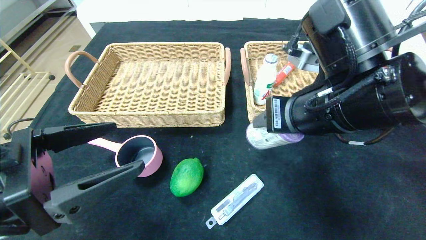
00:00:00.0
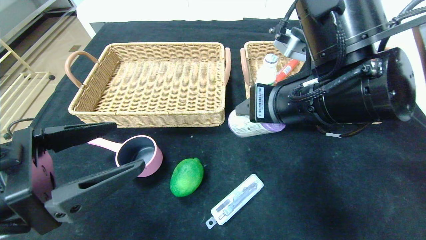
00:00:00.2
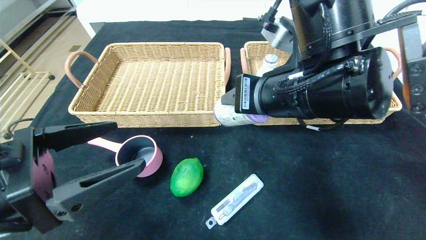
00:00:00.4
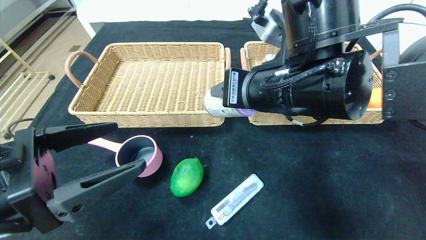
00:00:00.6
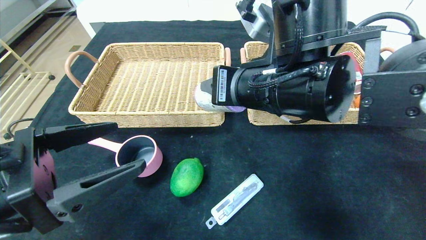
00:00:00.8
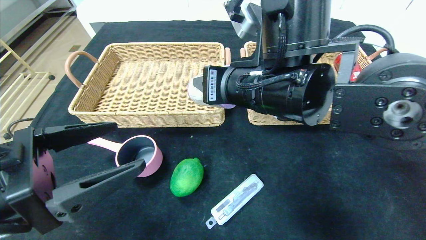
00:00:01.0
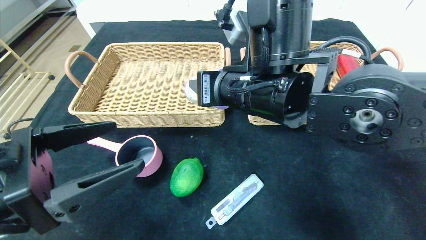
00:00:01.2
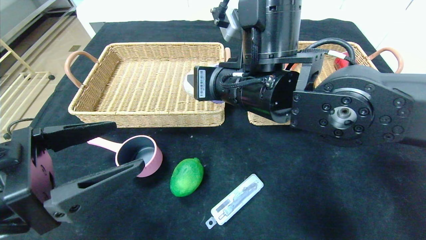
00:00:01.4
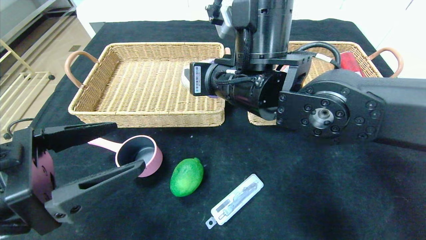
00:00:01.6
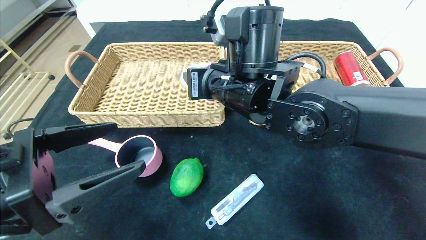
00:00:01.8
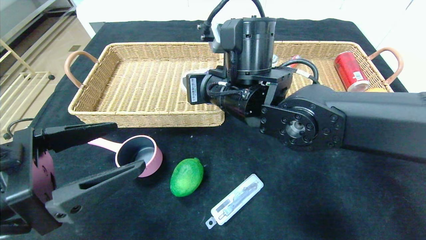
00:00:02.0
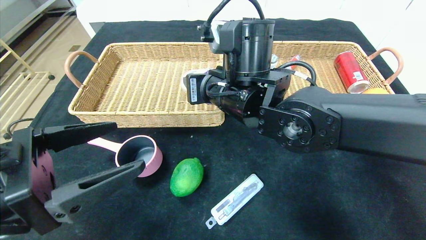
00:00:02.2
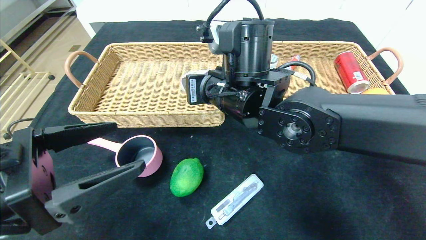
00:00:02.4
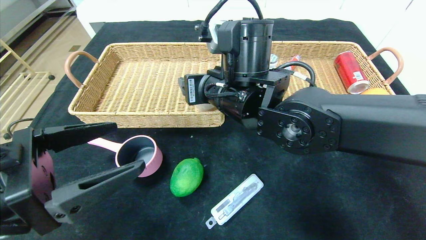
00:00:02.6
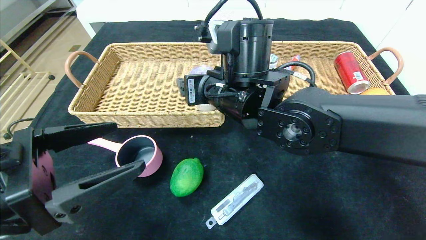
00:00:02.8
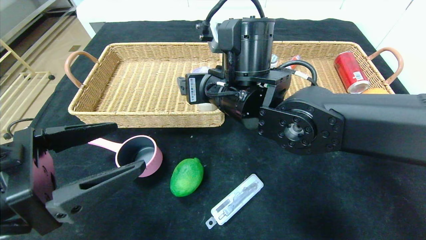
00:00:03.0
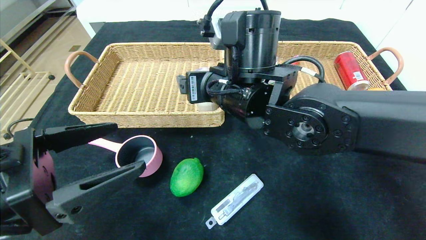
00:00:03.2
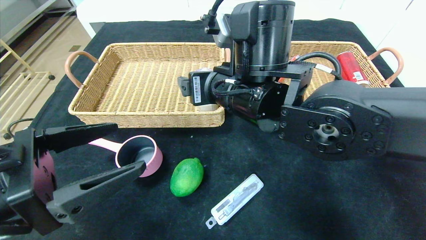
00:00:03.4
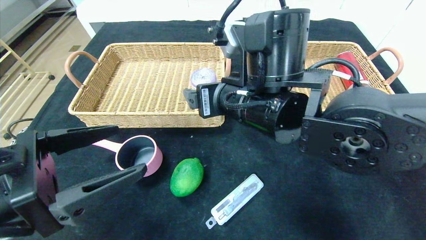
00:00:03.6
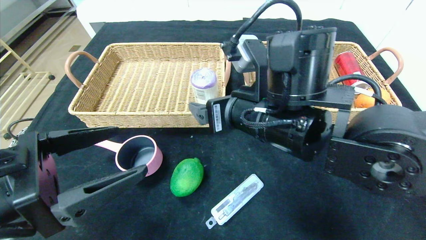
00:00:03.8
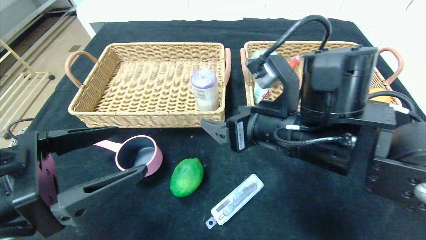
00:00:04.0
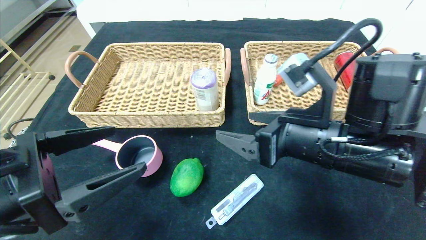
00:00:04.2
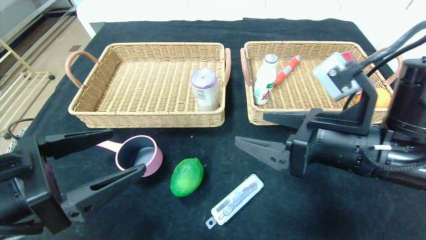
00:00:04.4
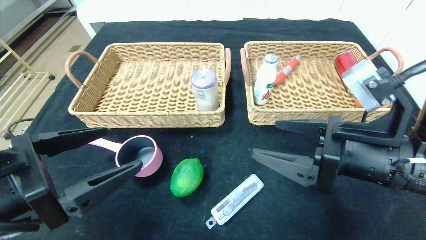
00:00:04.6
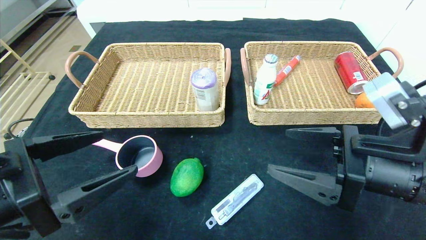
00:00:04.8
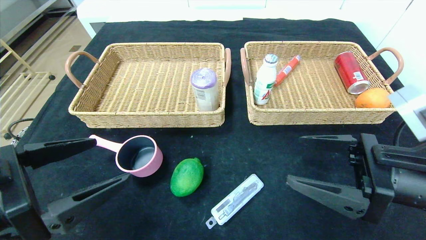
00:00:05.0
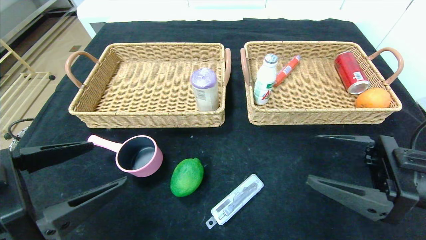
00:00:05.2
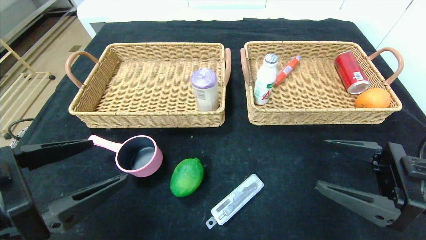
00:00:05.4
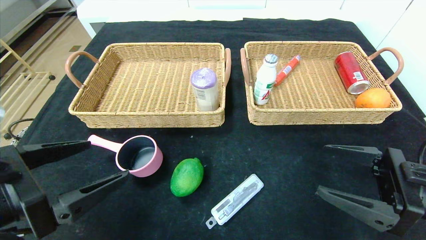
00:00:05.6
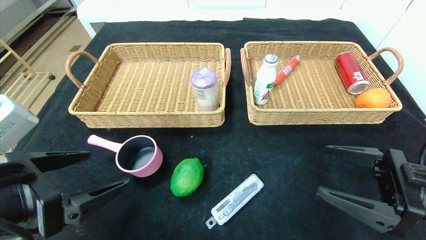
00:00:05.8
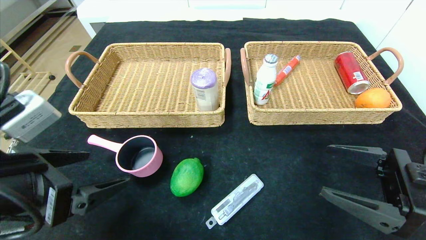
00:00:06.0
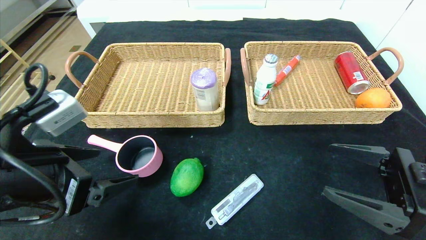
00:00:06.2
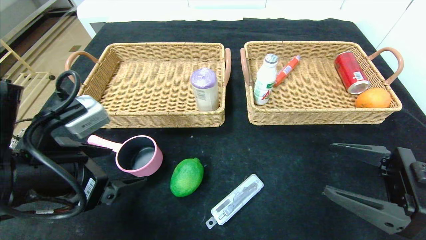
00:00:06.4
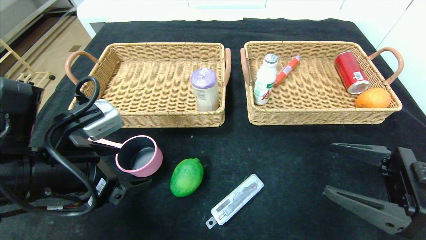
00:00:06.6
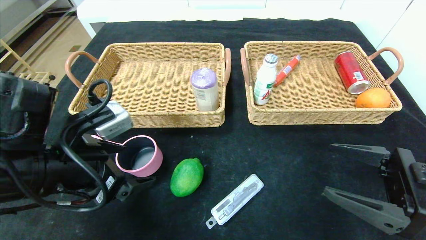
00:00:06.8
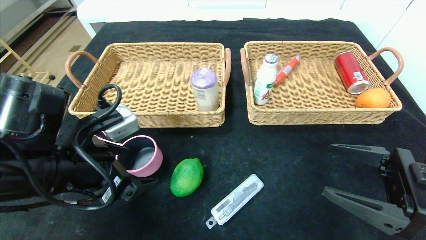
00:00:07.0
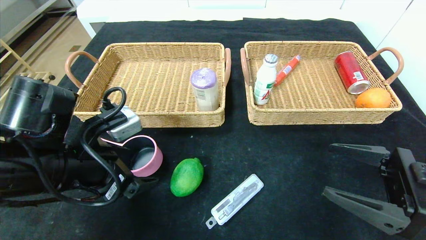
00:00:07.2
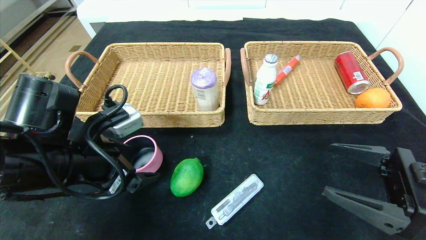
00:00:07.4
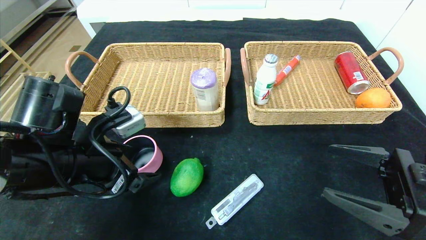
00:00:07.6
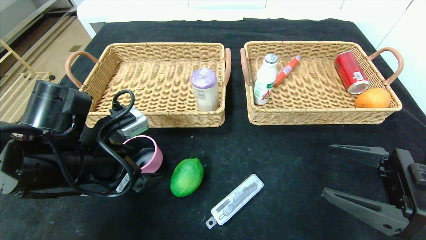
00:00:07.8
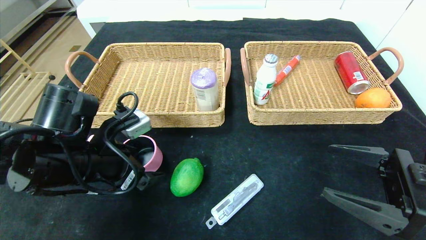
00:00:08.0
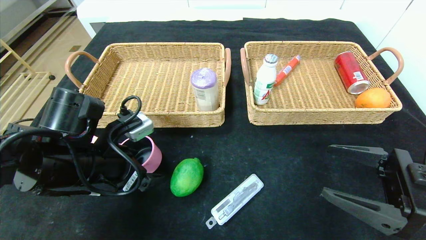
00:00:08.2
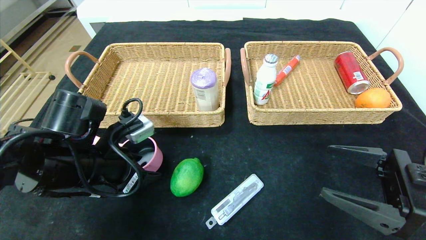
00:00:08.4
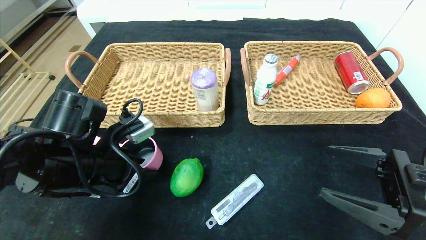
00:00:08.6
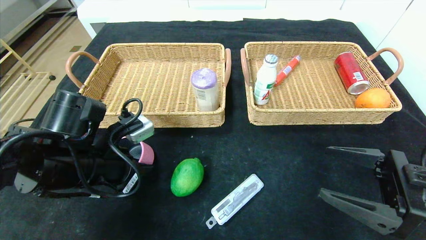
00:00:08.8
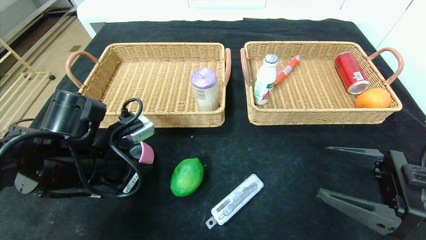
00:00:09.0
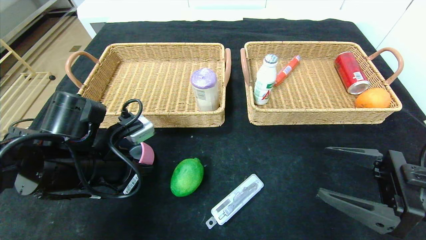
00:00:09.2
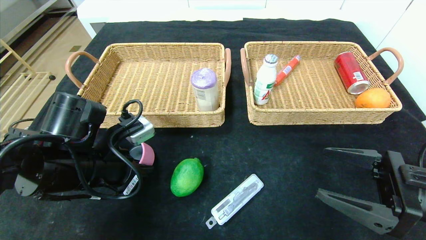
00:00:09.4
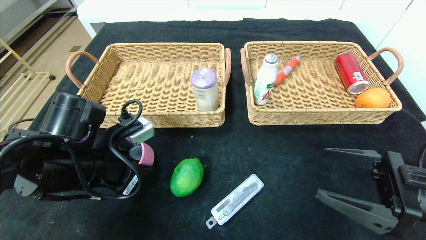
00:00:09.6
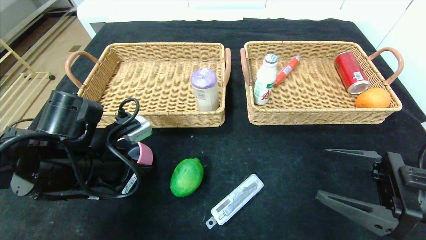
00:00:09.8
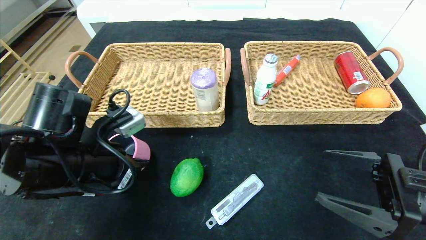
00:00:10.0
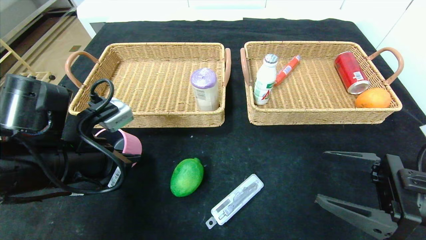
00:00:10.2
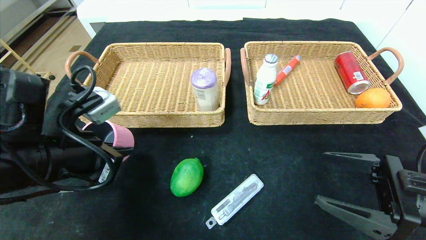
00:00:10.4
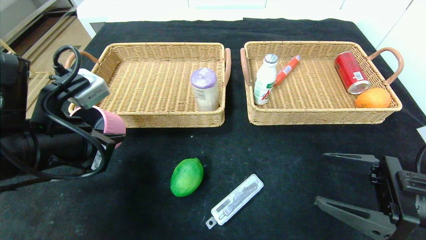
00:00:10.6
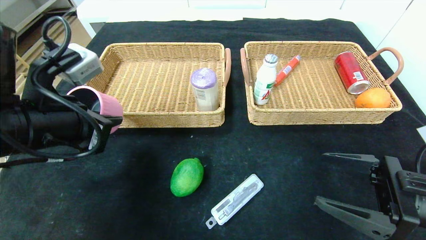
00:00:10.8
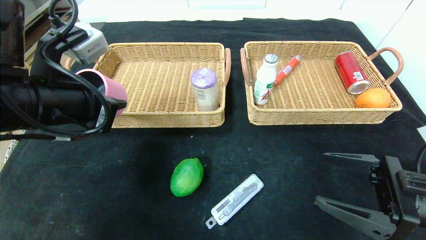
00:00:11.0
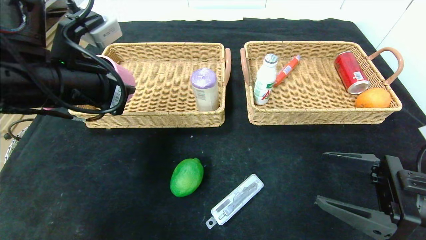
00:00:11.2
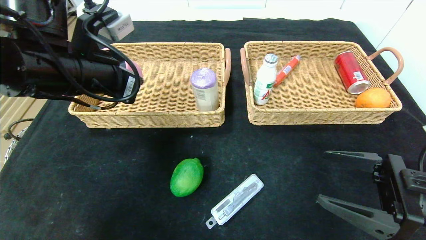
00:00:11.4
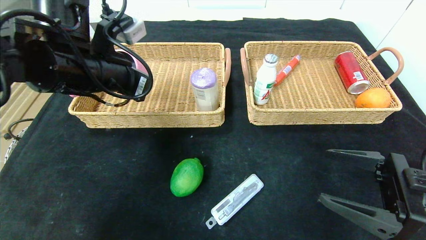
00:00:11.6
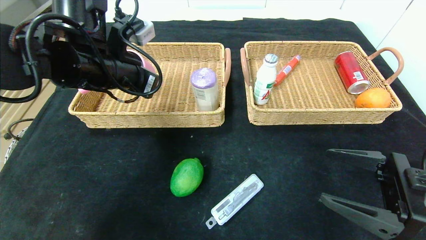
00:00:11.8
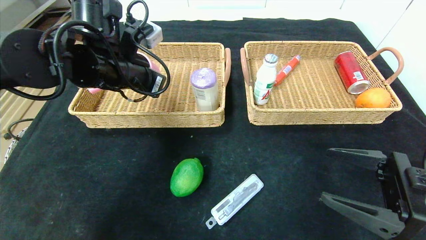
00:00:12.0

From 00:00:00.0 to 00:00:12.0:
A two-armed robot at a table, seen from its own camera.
From 00:00:00.0 to 00:00:01.6: The right gripper moves to the left and forward, approximately 10 cm.
From 00:00:01.6 to 00:00:03.0: The right gripper opens.
From 00:00:03.0 to 00:00:04.4: The right gripper goes approximately 20 cm to the right and backward.
From 00:00:04.4 to 00:00:06.0: The right gripper shifts about 10 cm to the right.
From 00:00:06.0 to 00:00:07.6: The left gripper goes some 10 cm forward.
From 00:00:07.6 to 00:00:09.0: The left gripper closes its fingers.
From 00:00:09.0 to 00:00:10.4: The left gripper changes place by some 5 cm.
From 00:00:10.4 to 00:00:12.0: The left gripper shifts about 15 cm forward and upward.

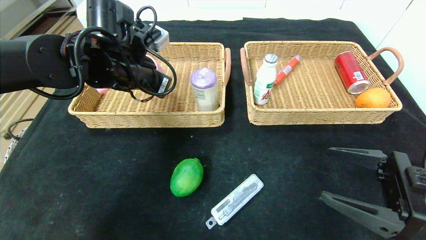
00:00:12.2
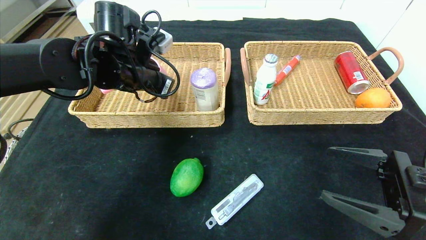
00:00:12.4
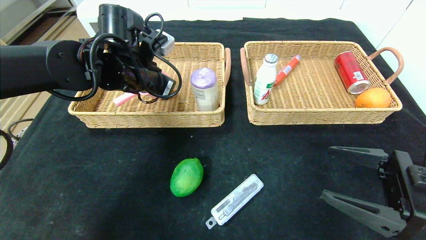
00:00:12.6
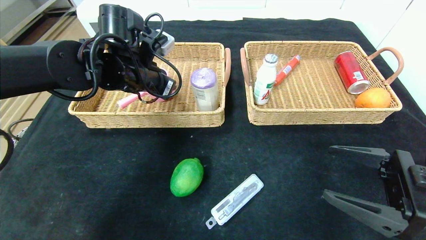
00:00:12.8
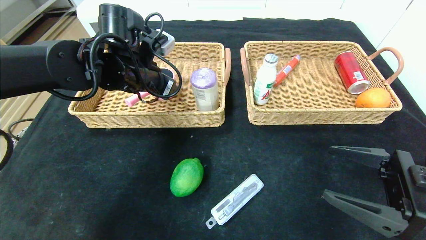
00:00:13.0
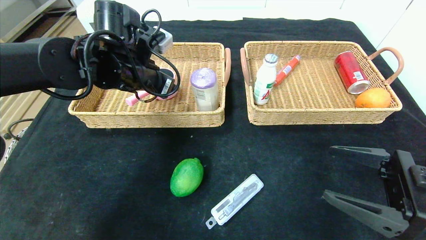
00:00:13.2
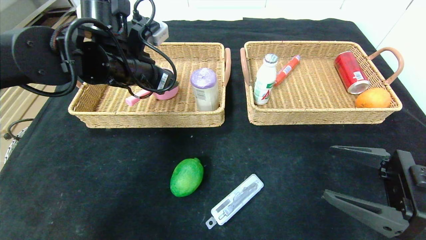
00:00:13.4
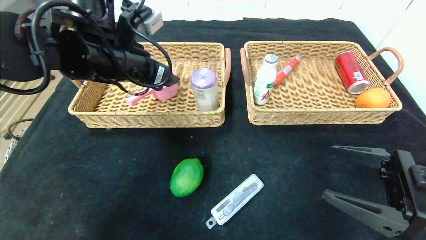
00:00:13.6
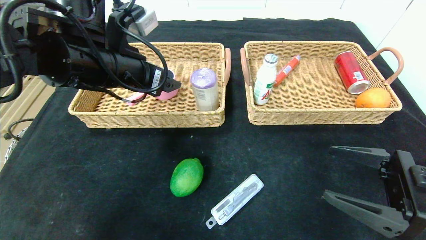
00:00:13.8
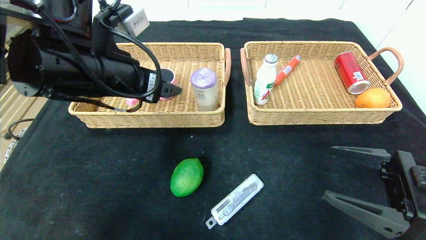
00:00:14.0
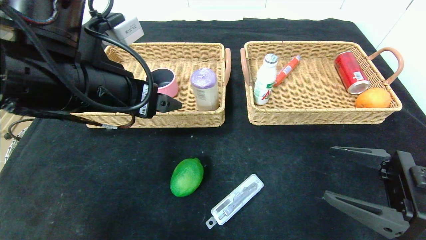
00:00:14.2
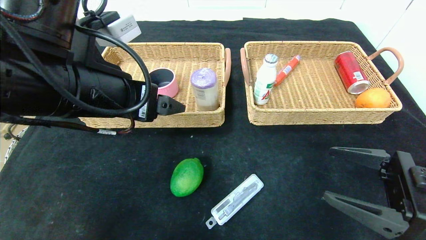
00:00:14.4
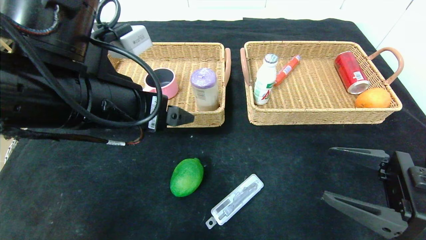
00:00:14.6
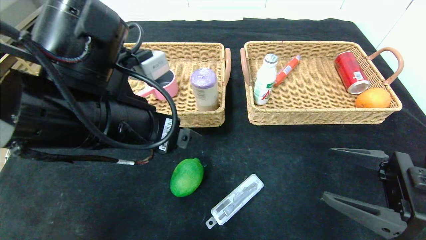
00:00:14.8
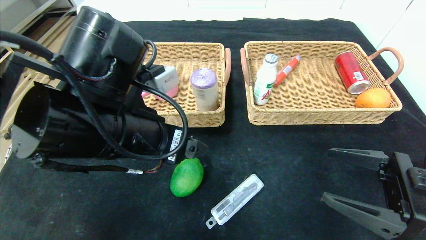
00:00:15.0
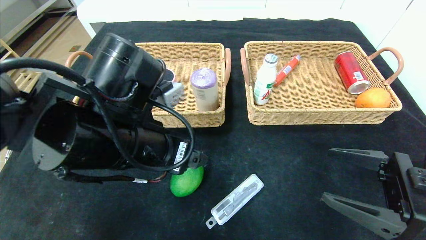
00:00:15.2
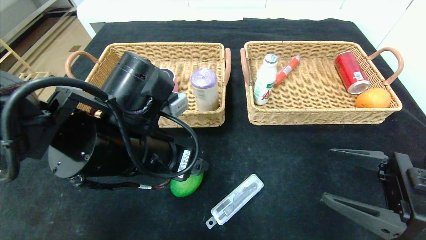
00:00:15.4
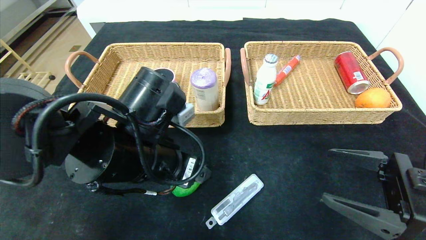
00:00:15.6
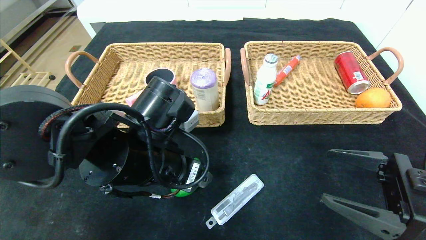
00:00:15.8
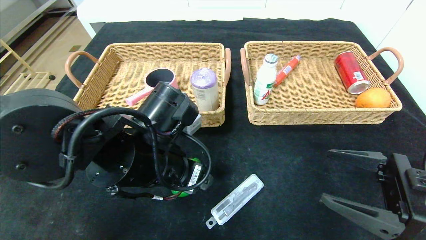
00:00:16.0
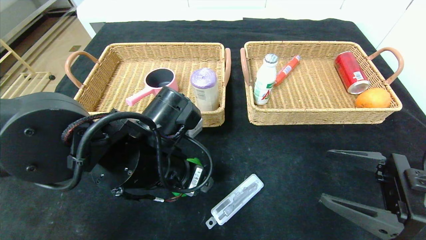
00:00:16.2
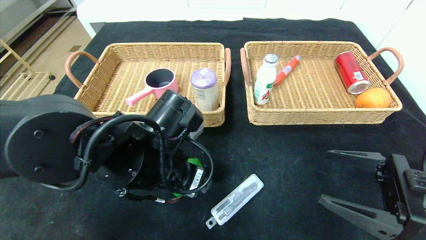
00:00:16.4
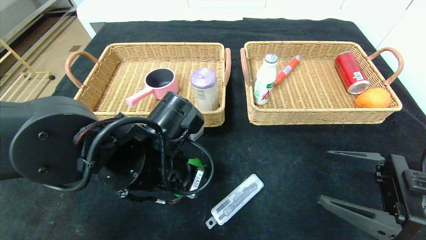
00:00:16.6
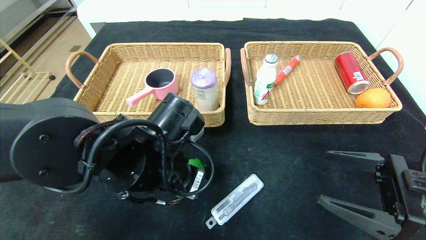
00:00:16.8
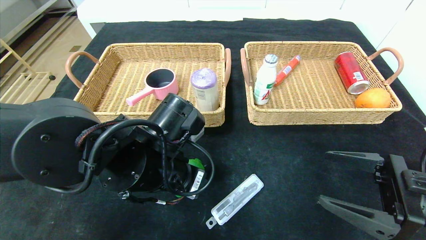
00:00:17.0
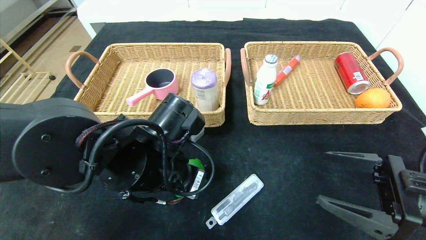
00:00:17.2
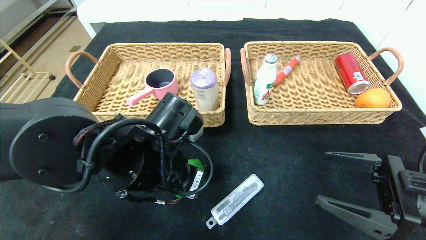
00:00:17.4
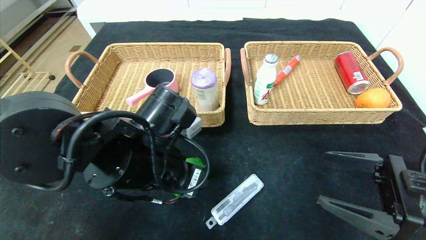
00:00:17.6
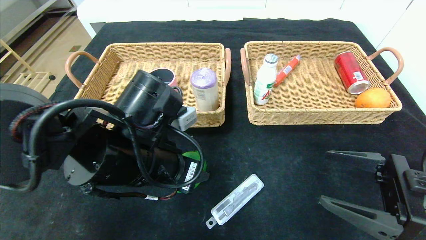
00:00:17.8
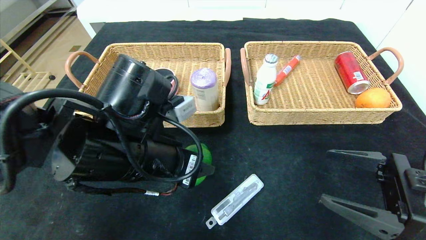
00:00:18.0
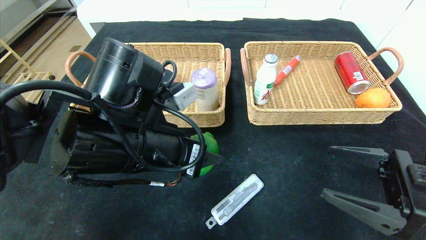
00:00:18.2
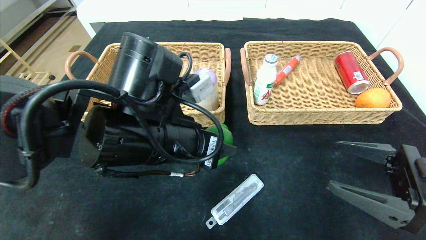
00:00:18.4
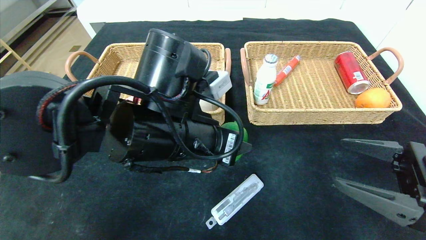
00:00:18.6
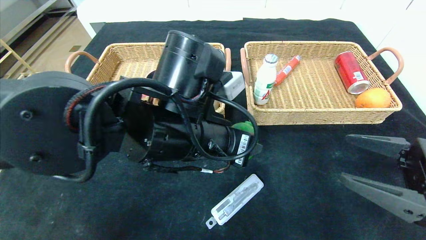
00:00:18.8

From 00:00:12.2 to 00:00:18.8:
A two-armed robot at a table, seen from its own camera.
Step, from 00:00:12.2 to 00:00:15.2: Pick up the pink pot and put it in the left basket.
From 00:00:12.2 to 00:00:13.8: The left gripper goes about 5 cm backward, and opens.
From 00:00:13.8 to 00:00:15.4: The left gripper moves downward, backward and to the right, about 10 cm.
From 00:00:15.4 to 00:00:17.2: The left gripper changes place by roughly 5 cm, and closes up.
From 00:00:17.2 to 00:00:18.8: The left gripper moves upward and to the right, about 10 cm.
